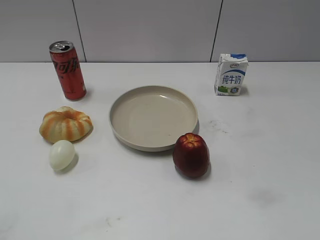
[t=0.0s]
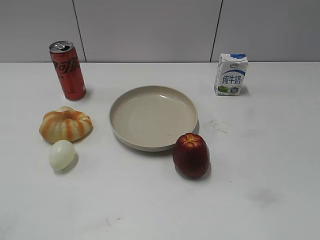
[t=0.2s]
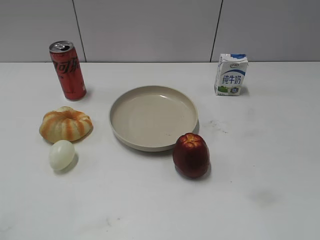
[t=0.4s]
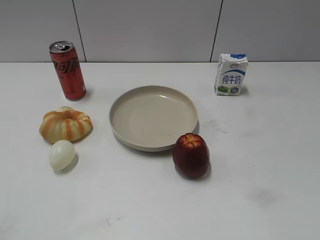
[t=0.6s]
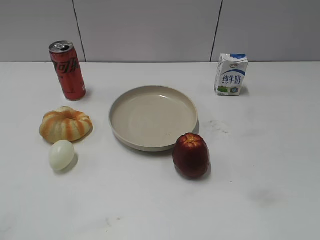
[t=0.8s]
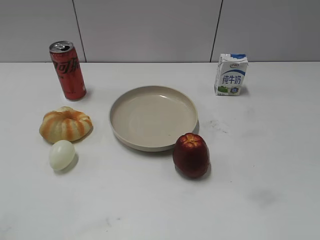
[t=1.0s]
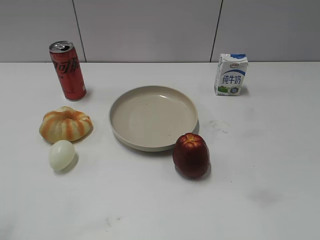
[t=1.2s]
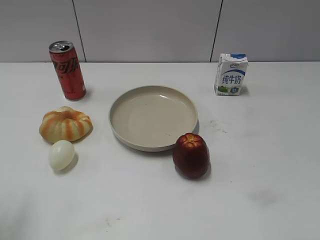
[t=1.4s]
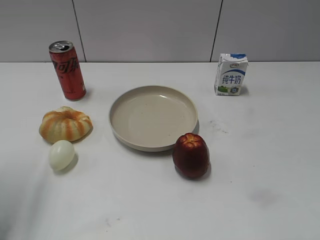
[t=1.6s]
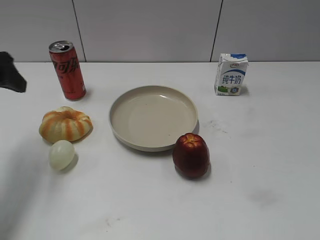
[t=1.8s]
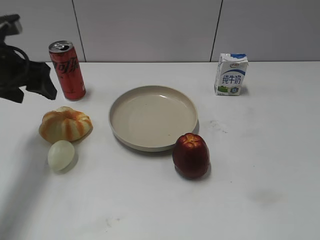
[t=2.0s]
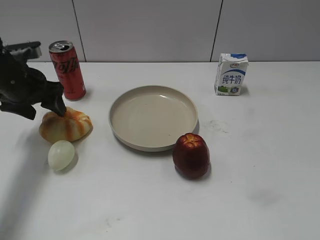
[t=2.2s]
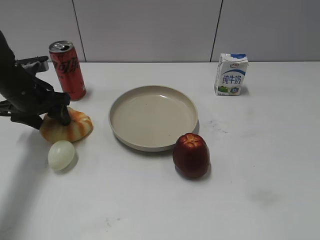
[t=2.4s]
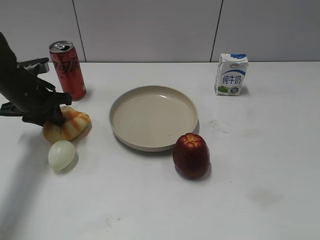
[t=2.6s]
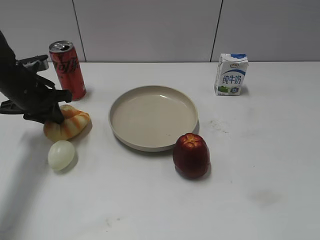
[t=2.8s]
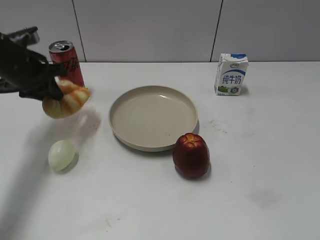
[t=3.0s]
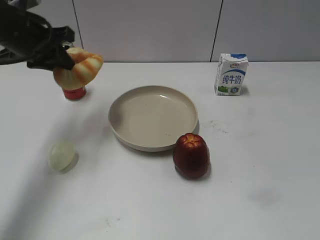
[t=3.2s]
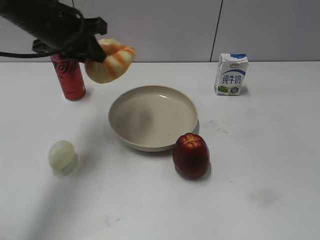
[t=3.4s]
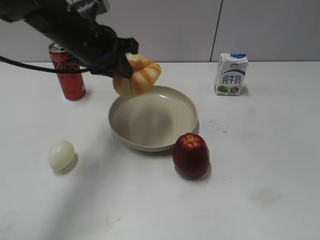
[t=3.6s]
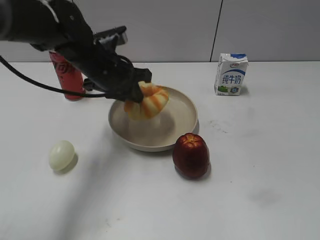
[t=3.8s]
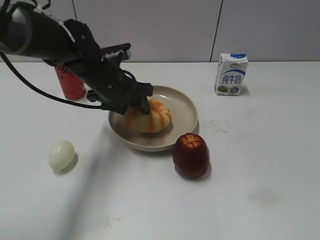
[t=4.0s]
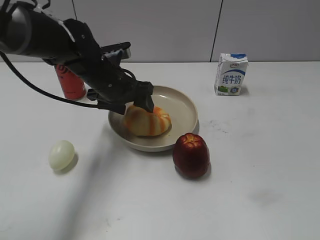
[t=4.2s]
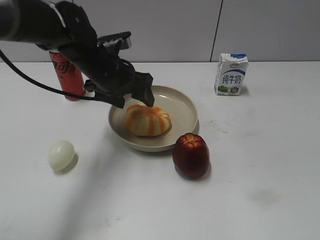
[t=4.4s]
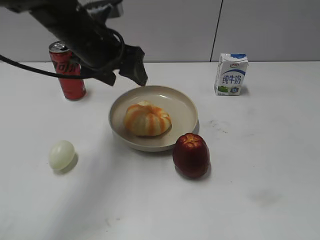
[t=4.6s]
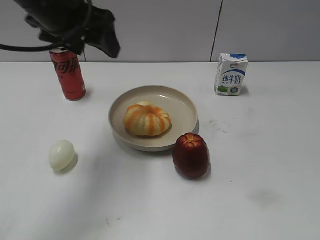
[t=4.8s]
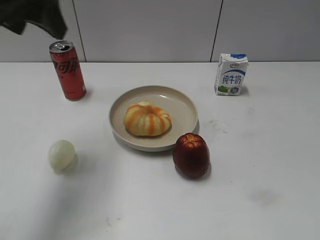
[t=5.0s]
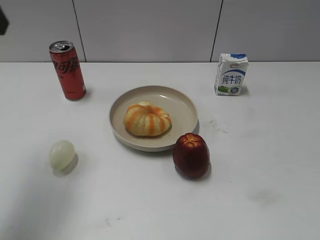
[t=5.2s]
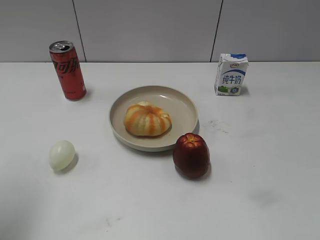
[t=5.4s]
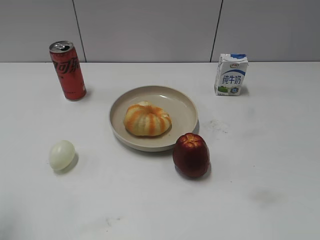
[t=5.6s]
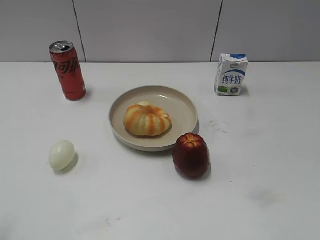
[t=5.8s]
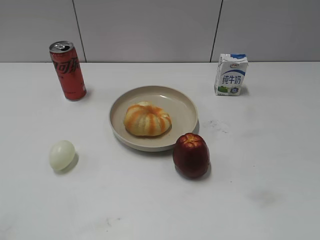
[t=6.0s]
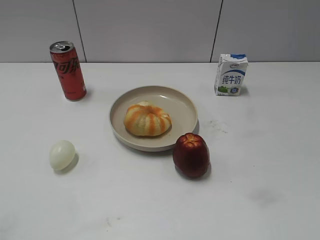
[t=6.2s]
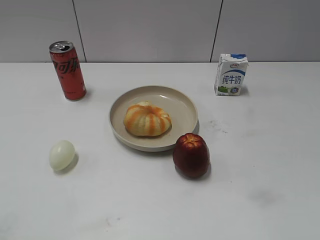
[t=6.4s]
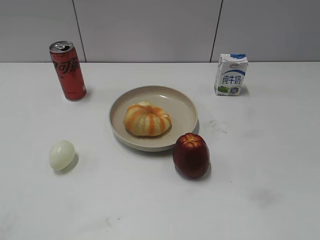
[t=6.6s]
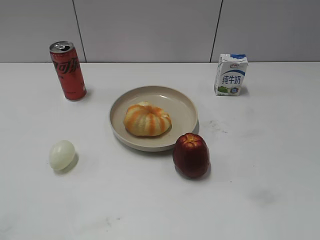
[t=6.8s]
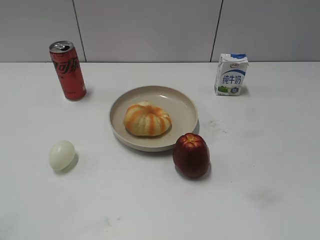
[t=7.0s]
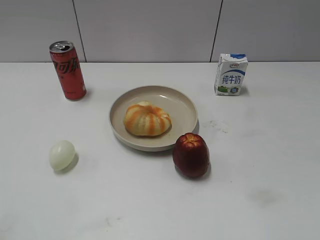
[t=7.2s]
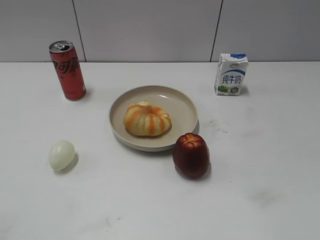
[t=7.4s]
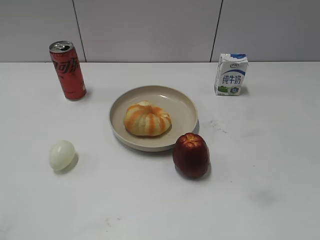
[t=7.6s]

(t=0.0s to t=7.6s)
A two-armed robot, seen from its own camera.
Step, t=1.0s - t=2.6s: Grasp the round bread with left gripper.
Step, t=2.8s - t=4.4s: Place the round bread on the plate with left gripper.
t=1.6s - t=3.0s: The left gripper heads forward and downward, covering roughly 15 cm, and closes up.
t=3.0s - t=4.6s: The left gripper heads to the right and upward, covering about 15 cm, and opens.
t=4.6s - t=6.0s: The left gripper shifts about 35 cm backward and to the left.
